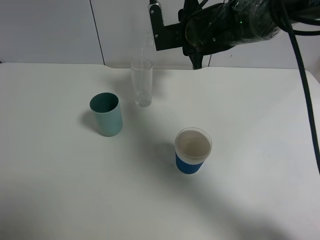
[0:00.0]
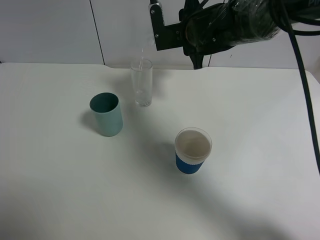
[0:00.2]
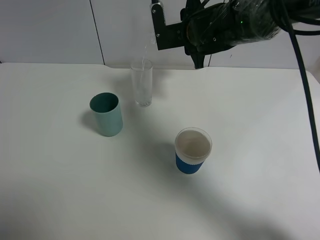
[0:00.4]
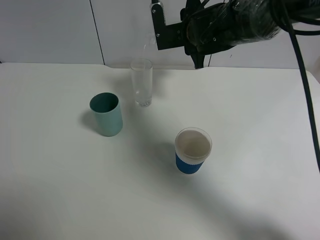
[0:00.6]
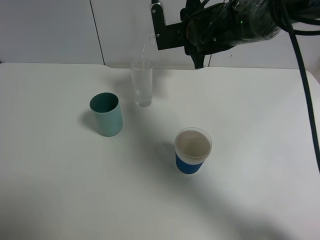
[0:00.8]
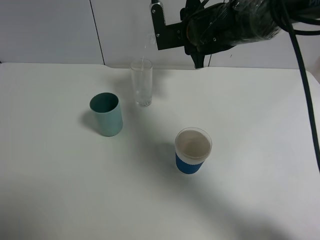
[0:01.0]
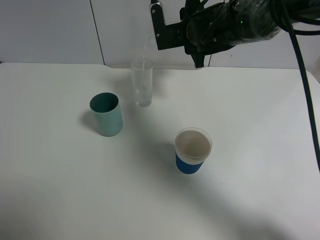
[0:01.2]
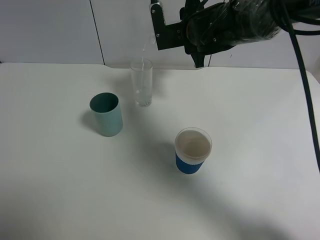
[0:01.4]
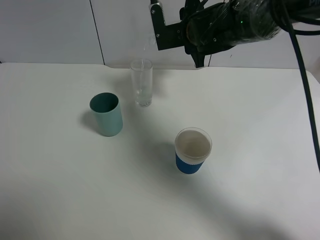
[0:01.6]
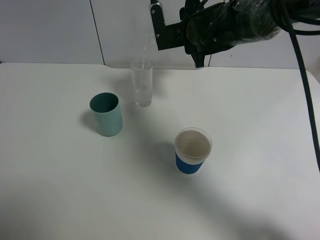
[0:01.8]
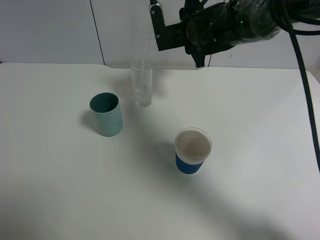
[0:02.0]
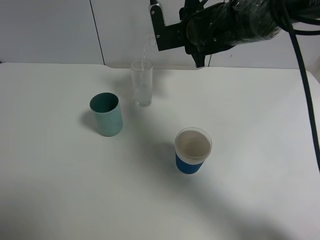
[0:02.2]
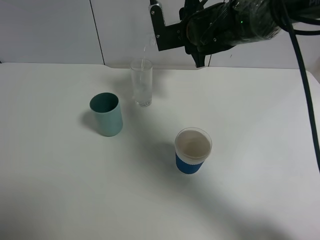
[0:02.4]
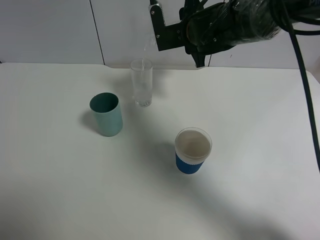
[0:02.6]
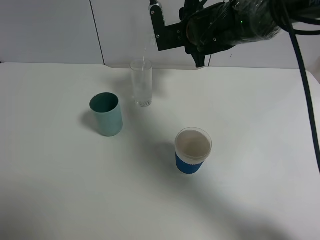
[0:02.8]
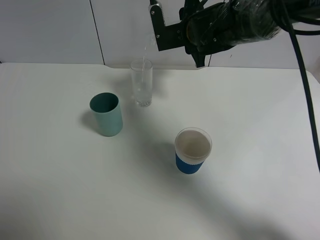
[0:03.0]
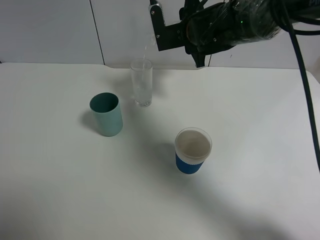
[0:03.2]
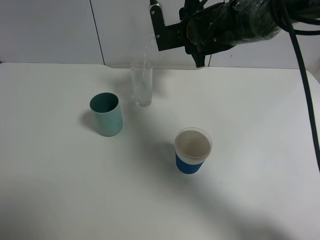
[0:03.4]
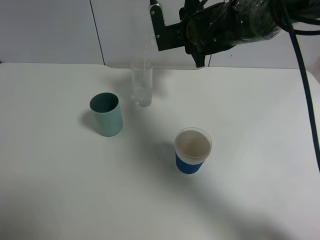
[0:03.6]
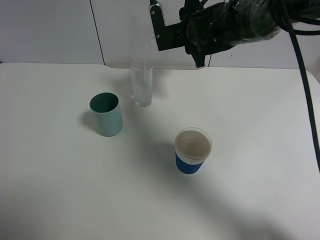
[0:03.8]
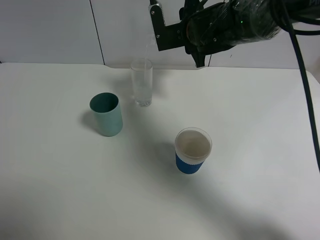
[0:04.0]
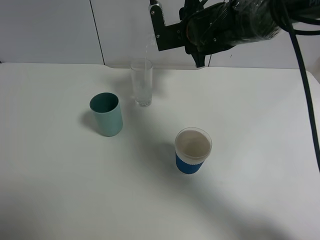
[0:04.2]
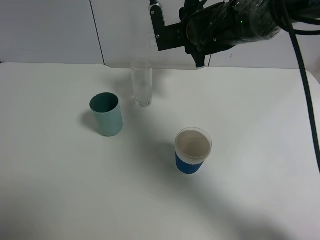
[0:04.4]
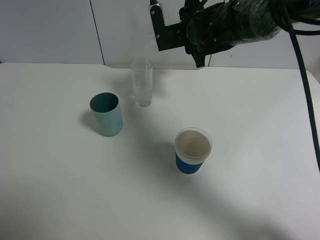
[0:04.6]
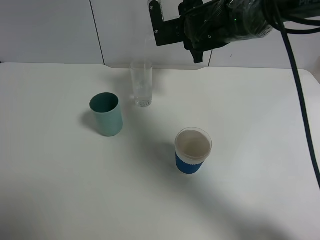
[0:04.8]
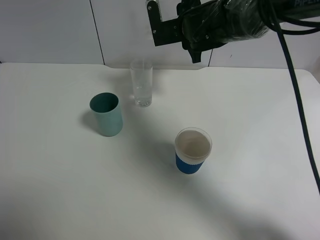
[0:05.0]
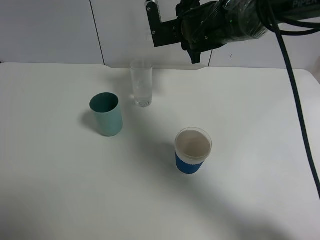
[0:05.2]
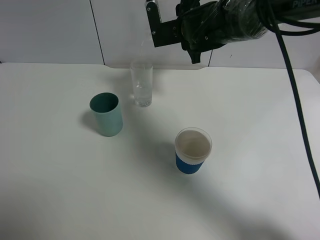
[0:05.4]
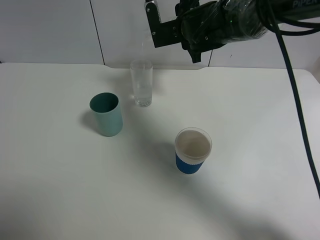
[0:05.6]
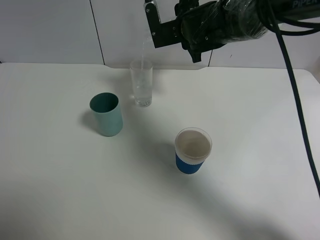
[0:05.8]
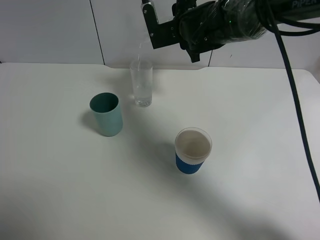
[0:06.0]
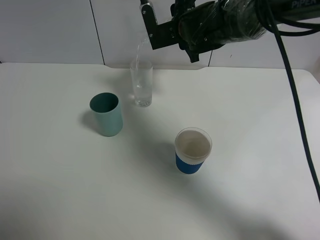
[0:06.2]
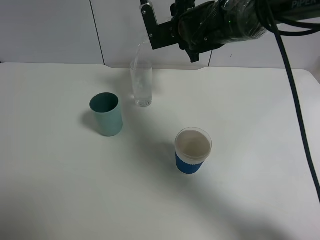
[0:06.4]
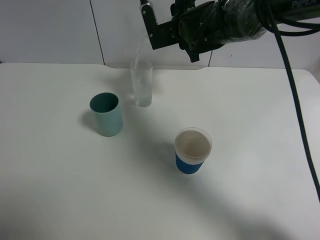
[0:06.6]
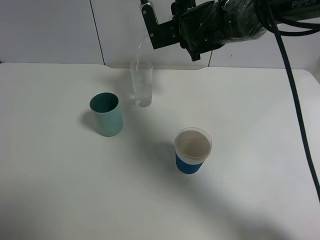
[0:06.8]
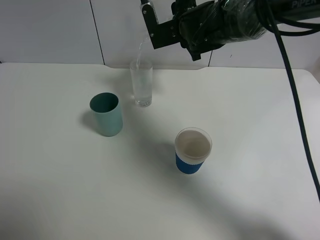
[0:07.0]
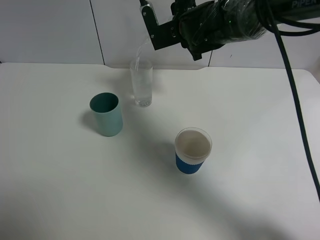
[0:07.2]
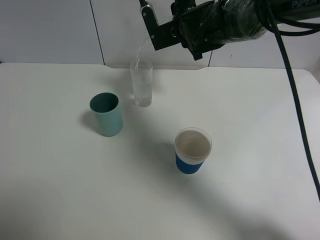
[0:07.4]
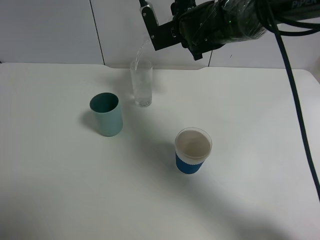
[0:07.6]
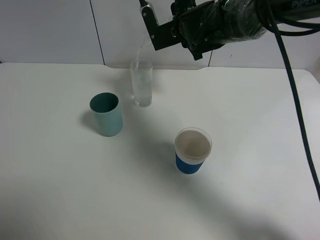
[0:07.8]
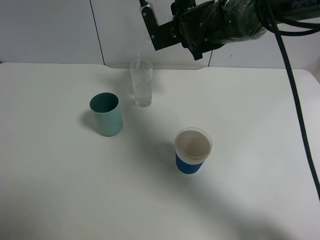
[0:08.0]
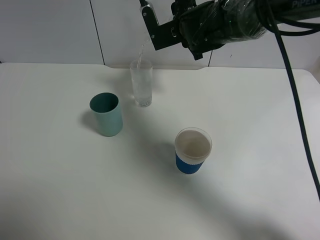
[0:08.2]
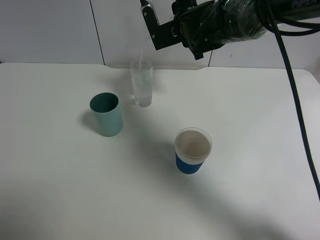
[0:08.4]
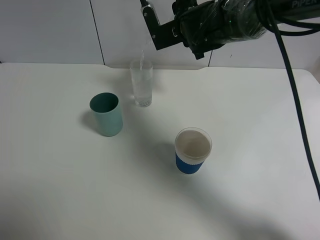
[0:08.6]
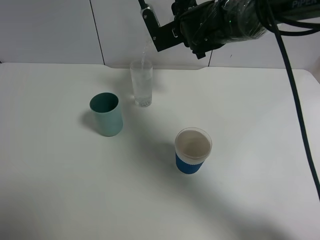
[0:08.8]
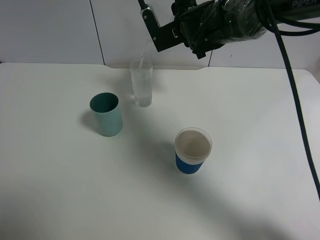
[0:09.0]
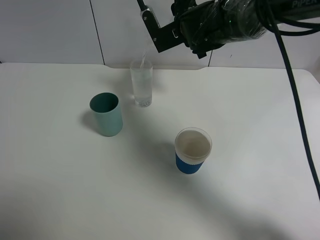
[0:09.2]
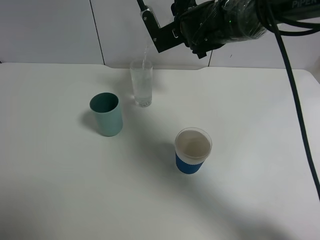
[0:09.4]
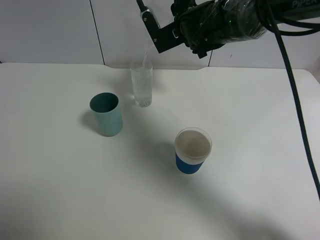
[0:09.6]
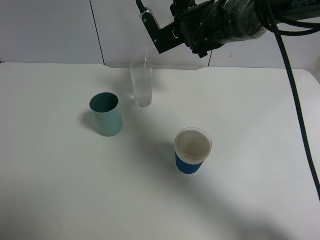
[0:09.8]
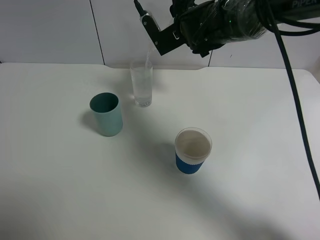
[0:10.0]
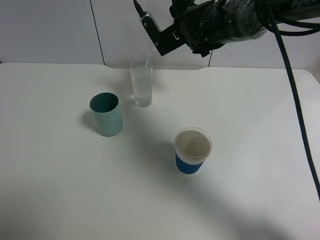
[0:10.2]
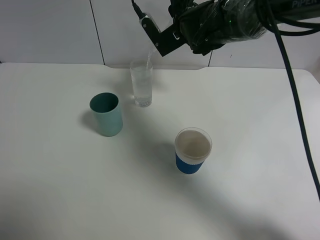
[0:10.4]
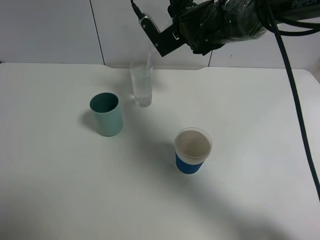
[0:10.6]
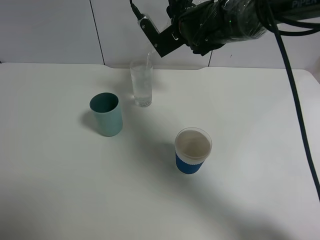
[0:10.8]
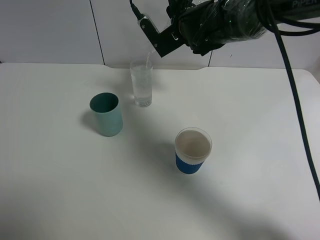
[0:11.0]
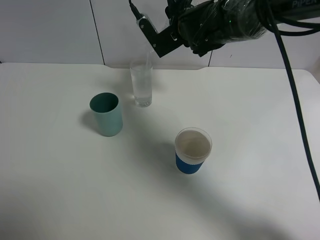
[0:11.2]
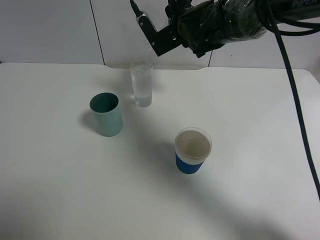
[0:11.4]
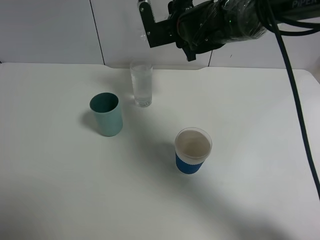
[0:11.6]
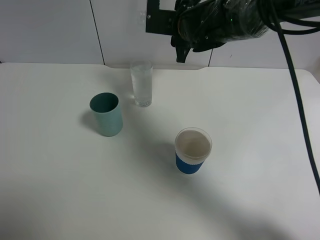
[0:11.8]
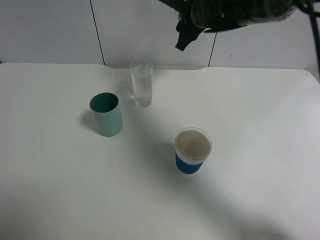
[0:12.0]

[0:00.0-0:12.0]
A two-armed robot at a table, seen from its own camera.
Task of the whole recording: use a gripper to hold the bottle of the drink and pour it into a random cup.
Step, 0:00.0 to 0:11.6: Pour the mineral water into the glass with the right gripper.
0:00.0 to 0:04.4: Neither gripper changes place.
0:04.4 to 0:06.0: The grippers stay close to where they were, moving slightly.
0:06.0 to 0:07.6: Both grippers stay put.
0:07.6 to 0:09.0: Neither gripper changes place.
0:09.0 to 0:10.4: The grippers make only small movements.

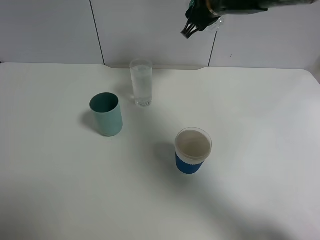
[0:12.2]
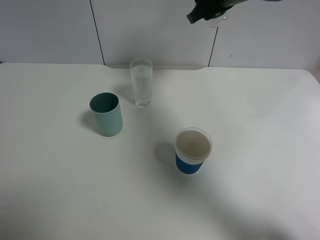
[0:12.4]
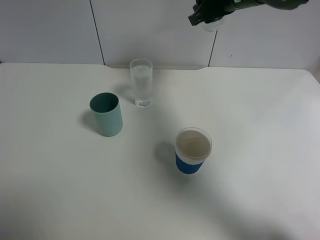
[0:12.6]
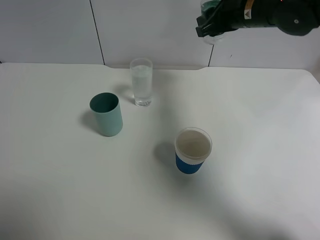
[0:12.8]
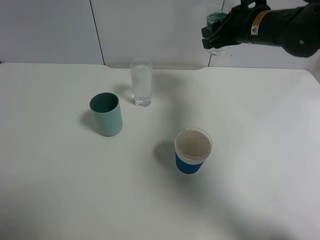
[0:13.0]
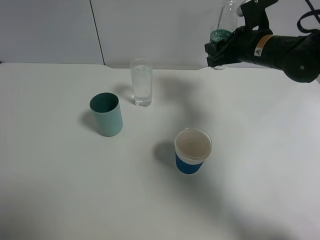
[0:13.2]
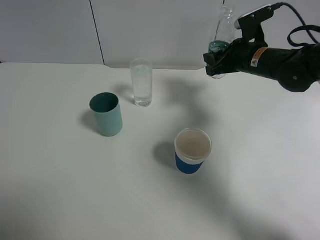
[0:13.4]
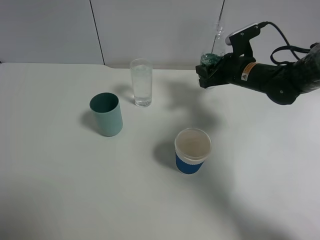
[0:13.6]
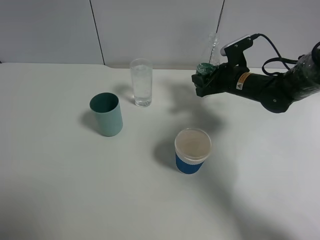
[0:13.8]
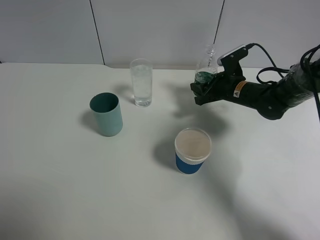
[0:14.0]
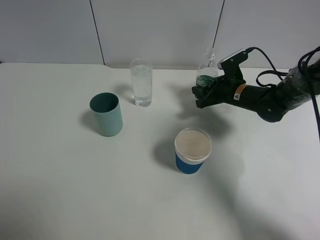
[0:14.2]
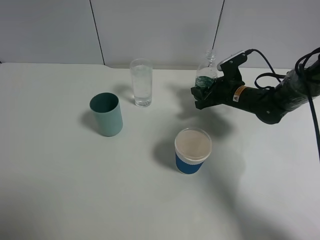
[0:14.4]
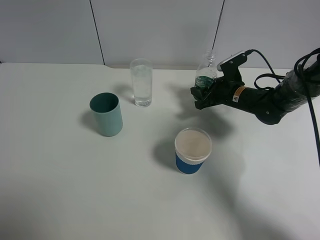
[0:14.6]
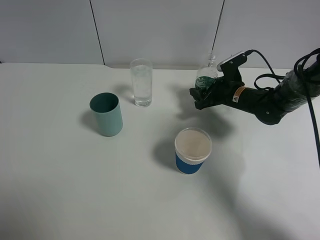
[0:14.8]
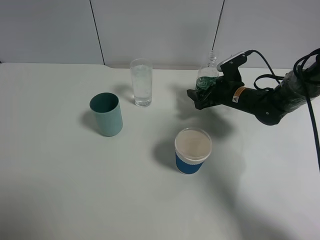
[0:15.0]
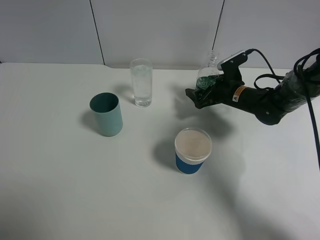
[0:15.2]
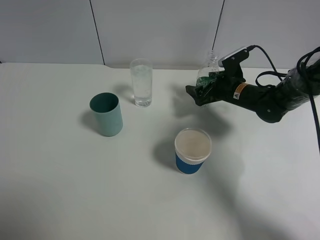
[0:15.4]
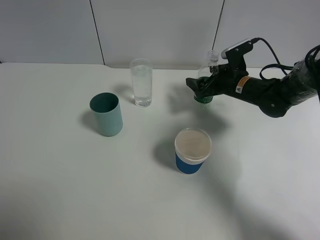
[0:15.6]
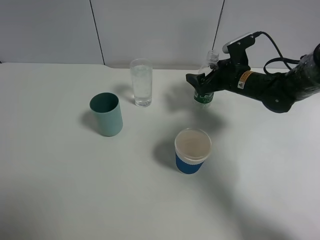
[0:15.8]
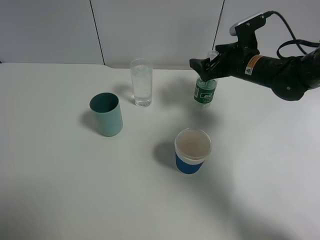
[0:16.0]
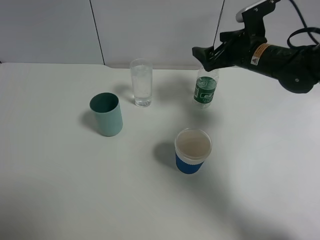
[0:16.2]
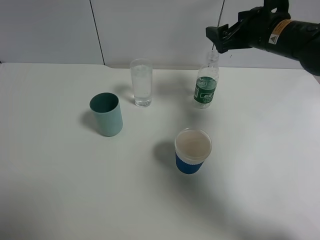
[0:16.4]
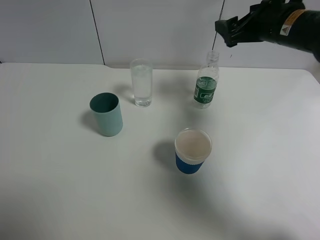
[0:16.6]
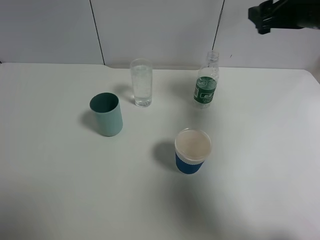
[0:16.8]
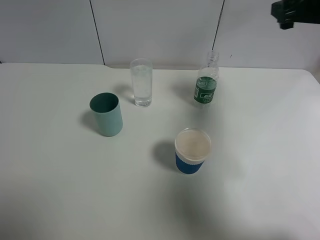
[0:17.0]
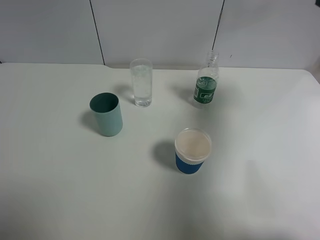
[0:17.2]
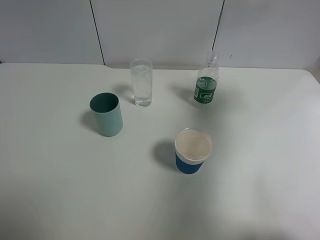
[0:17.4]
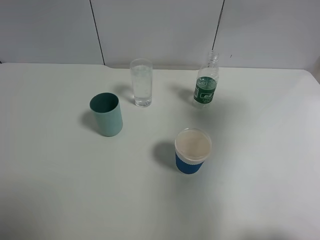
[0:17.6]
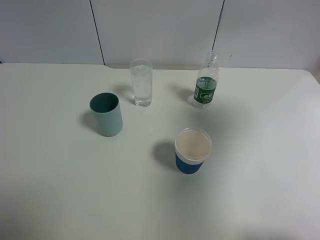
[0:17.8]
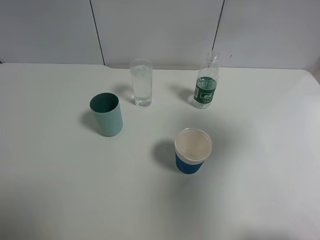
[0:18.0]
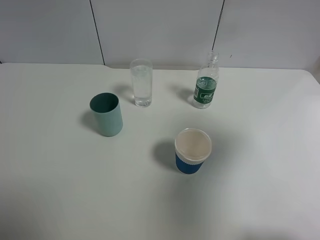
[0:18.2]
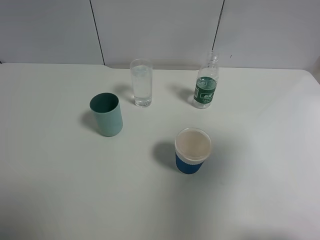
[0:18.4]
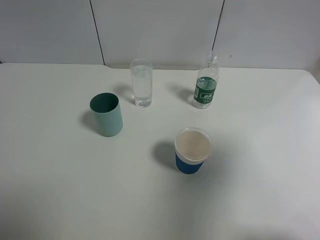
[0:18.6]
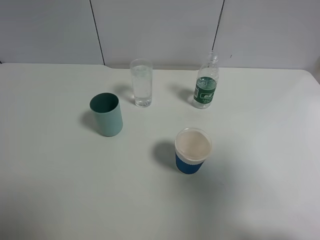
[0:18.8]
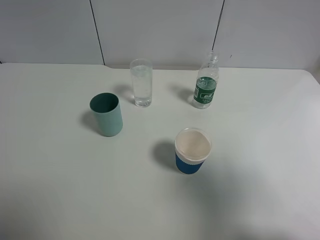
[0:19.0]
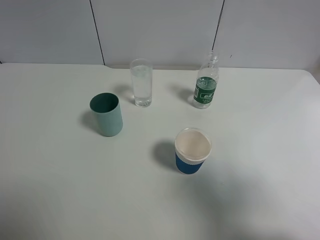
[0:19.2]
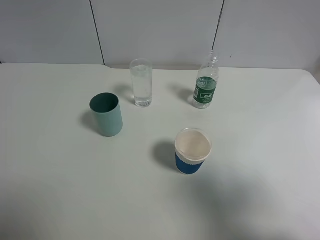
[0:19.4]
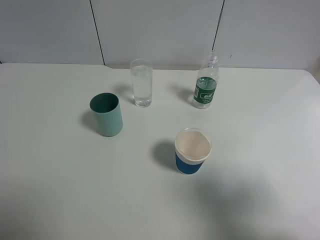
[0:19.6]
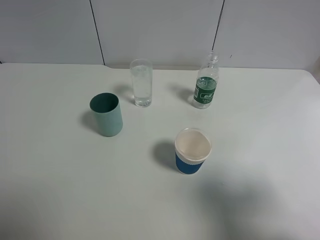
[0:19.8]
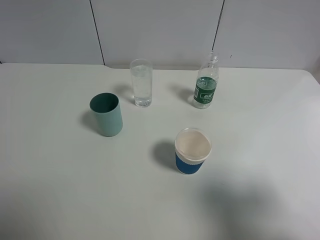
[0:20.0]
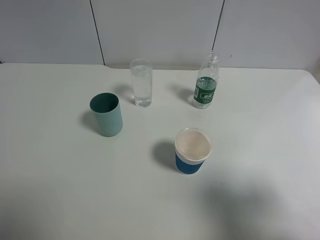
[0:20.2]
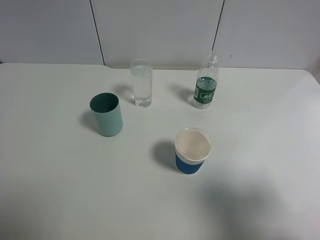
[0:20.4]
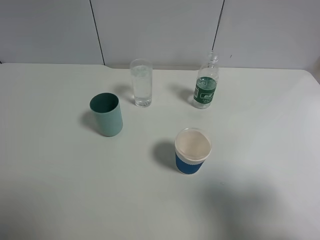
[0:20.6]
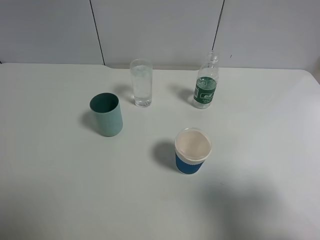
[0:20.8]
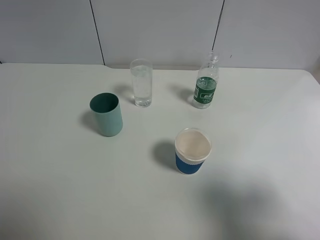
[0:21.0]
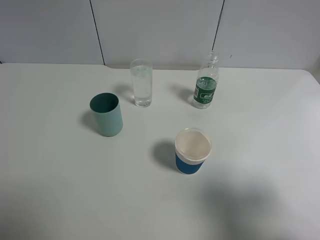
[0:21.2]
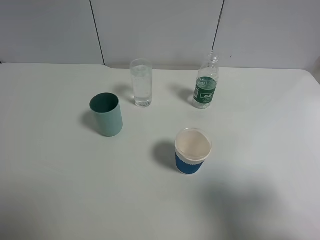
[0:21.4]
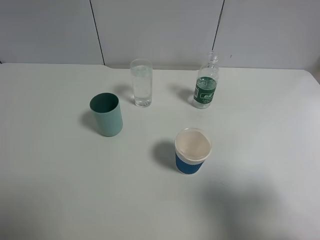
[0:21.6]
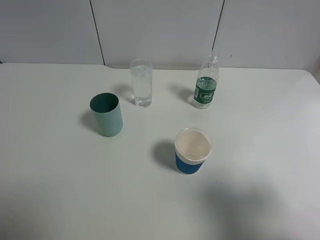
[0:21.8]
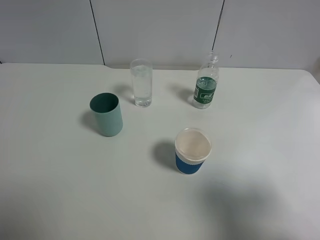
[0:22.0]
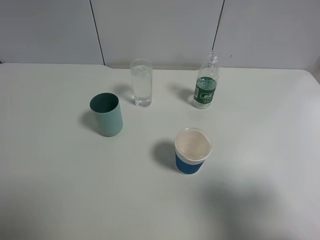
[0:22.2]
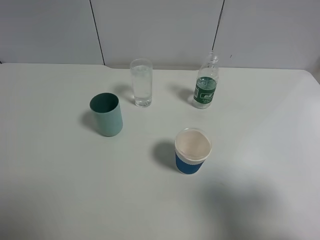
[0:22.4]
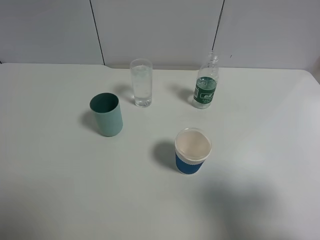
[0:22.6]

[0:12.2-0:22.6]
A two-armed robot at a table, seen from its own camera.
Task of the whole recording: use a gripper to hold the bottle of the drink and pour it into a random cup.
Step, 0:12.2 to 0:15.2: Place the mineral water bottle on the table with the right gripper.
0:12.2 to 0:13.6: The right gripper is displaced downward and to the right by some 15 cm.
0:13.6 to 0:15.2: The right gripper moves downward, some 5 cm, and opens up.
0:15.2 to 0:16.6: The right gripper moves upward, roughly 20 cm.
0:16.6 to 0:18.2: The right gripper heads backward and upward, covering some 30 cm.
0:18.2 to 0:19.6: The right gripper travels downward and backward by approximately 15 cm.
0:21.2 to 0:22.6: Both grippers stay put.
